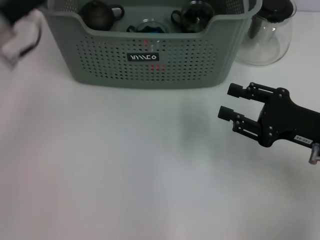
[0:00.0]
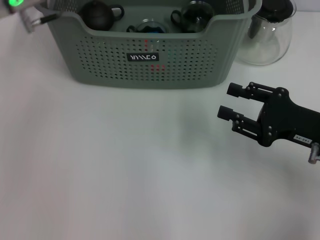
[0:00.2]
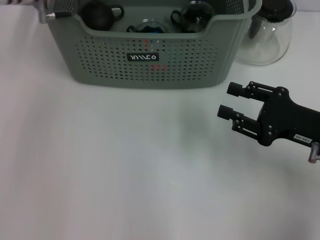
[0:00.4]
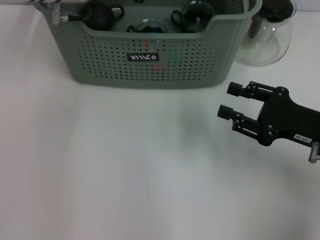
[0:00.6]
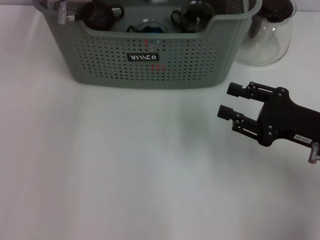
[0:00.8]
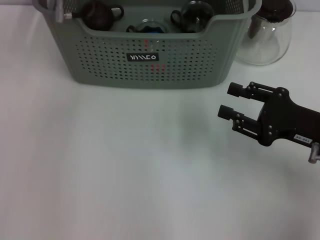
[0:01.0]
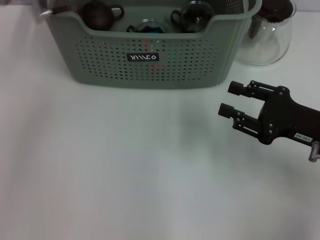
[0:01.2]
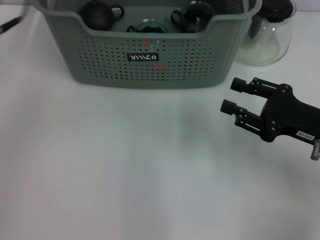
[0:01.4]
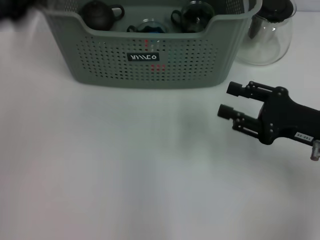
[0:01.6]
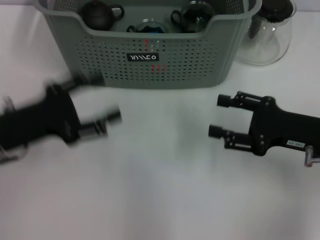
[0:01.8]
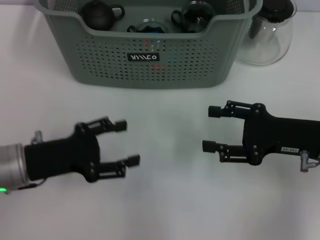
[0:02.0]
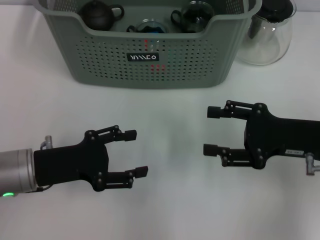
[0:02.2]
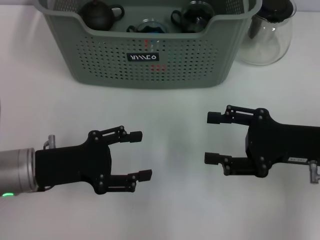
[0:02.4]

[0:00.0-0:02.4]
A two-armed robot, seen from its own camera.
Task of the whole recording: pick up the teacup on the table and place it into the storage bin, pick up the block on the table and place it into the storage bin.
0:00.0 to 0:01.2: The left gripper moves forward and to the right, some 5 cm, and opens up.
0:01.2 to 0:02.4: The left gripper heads backward and downward, covering roughly 25 cm, and opens up.
